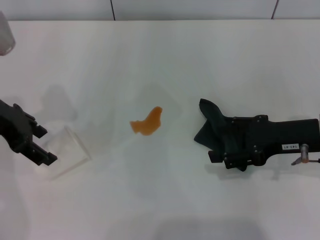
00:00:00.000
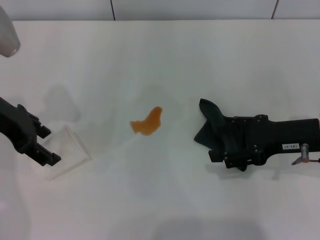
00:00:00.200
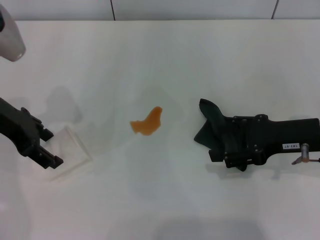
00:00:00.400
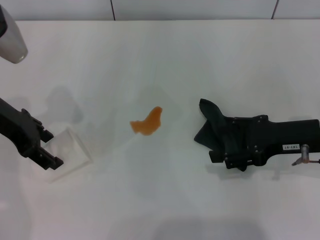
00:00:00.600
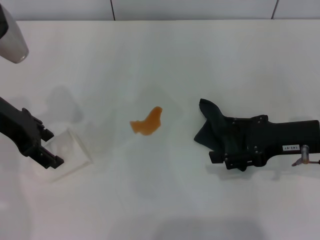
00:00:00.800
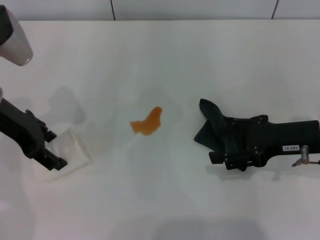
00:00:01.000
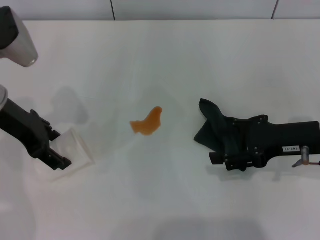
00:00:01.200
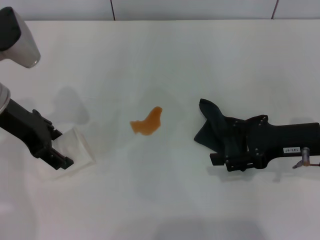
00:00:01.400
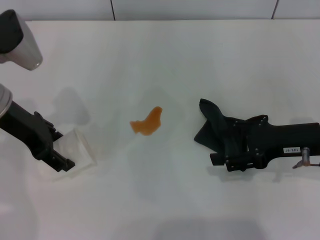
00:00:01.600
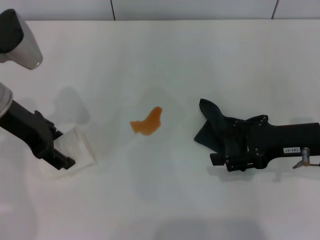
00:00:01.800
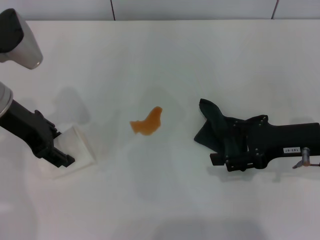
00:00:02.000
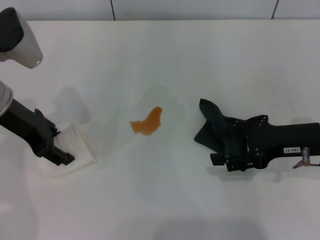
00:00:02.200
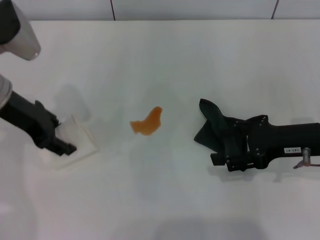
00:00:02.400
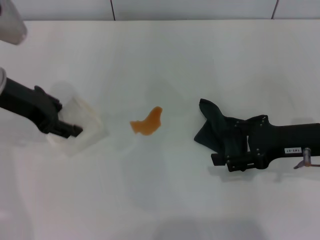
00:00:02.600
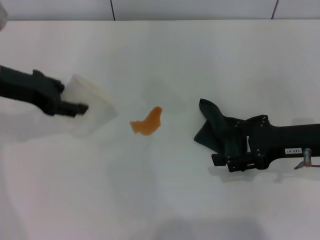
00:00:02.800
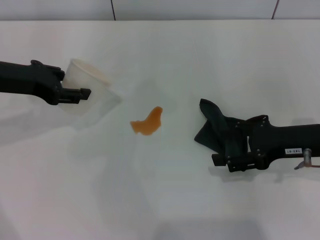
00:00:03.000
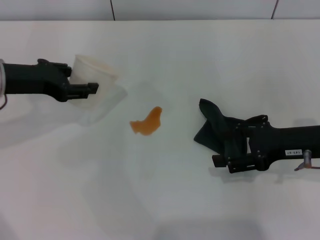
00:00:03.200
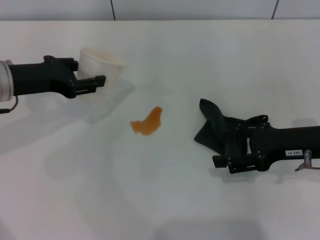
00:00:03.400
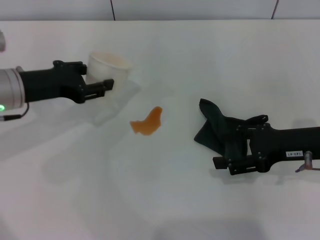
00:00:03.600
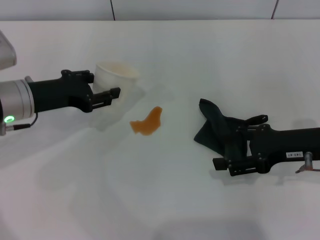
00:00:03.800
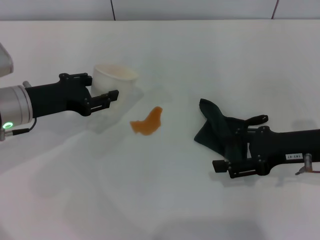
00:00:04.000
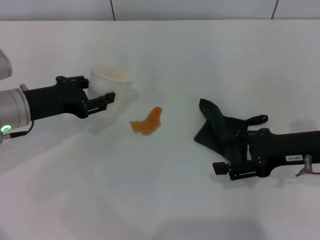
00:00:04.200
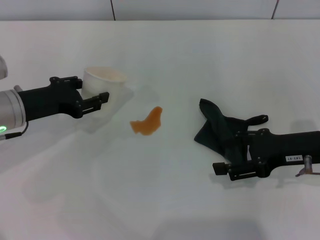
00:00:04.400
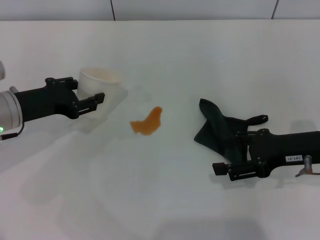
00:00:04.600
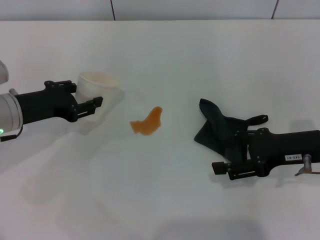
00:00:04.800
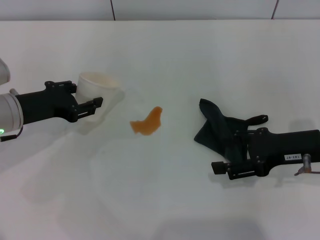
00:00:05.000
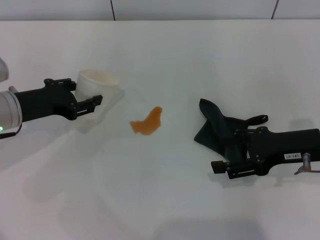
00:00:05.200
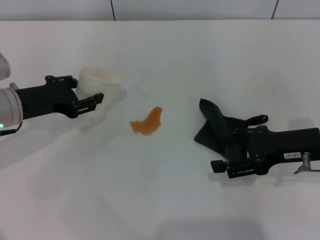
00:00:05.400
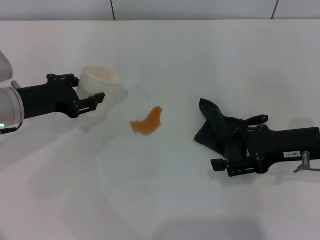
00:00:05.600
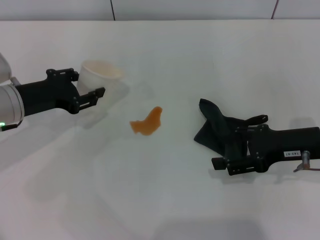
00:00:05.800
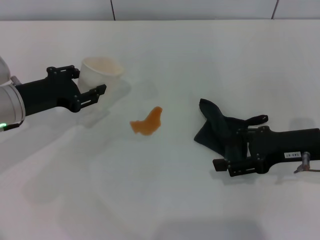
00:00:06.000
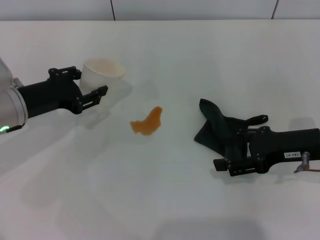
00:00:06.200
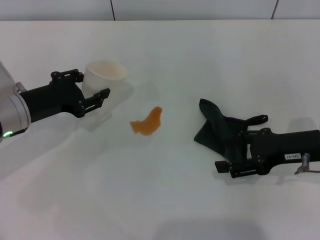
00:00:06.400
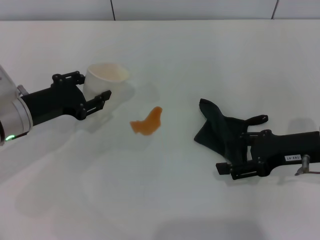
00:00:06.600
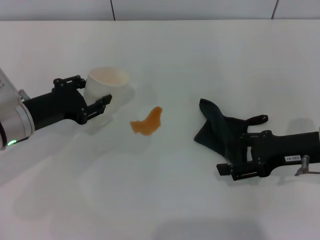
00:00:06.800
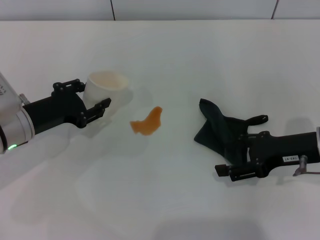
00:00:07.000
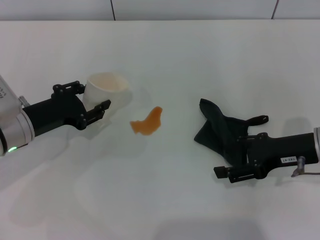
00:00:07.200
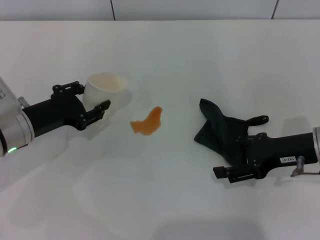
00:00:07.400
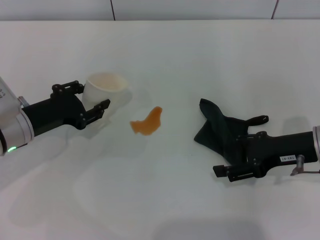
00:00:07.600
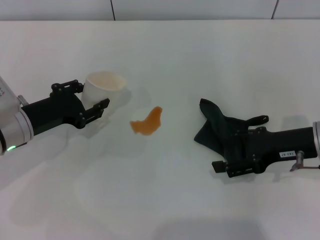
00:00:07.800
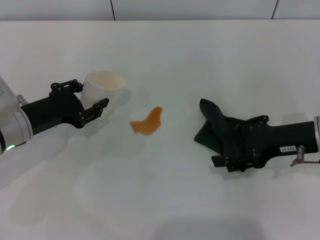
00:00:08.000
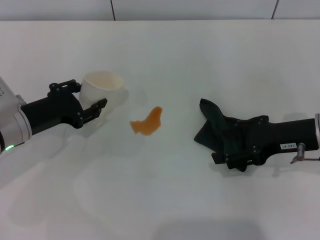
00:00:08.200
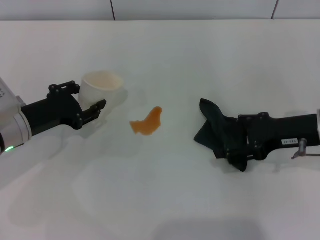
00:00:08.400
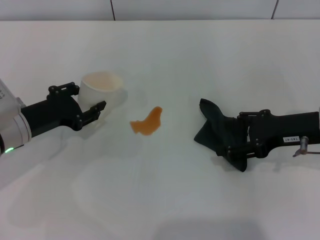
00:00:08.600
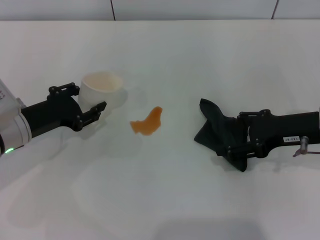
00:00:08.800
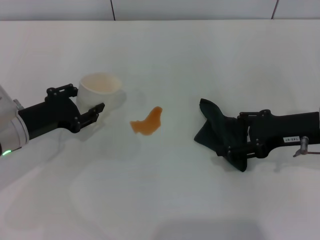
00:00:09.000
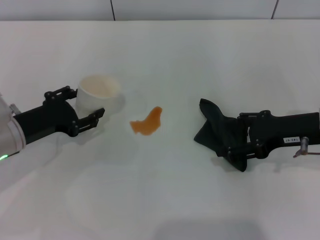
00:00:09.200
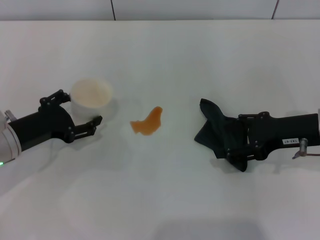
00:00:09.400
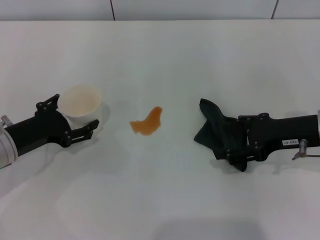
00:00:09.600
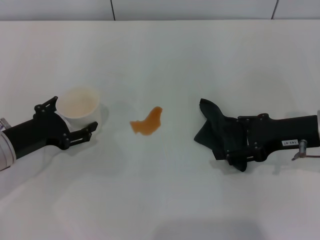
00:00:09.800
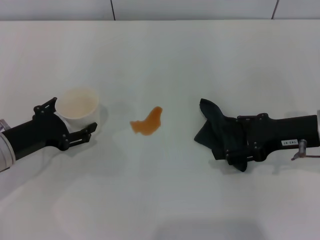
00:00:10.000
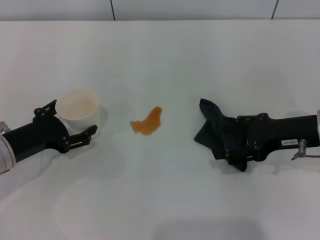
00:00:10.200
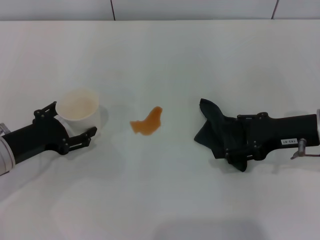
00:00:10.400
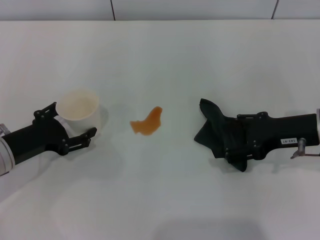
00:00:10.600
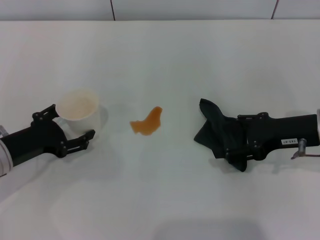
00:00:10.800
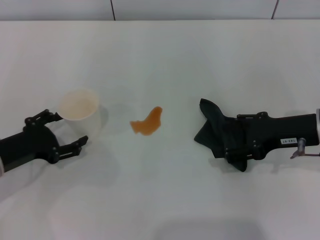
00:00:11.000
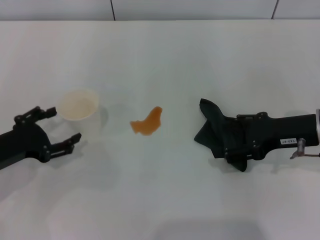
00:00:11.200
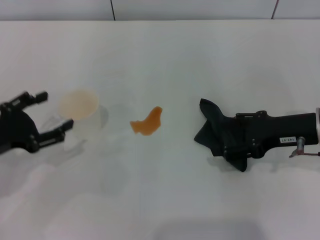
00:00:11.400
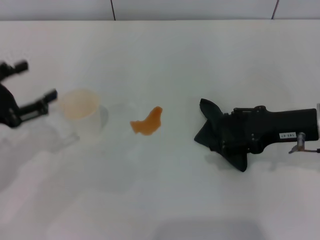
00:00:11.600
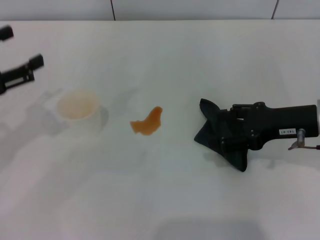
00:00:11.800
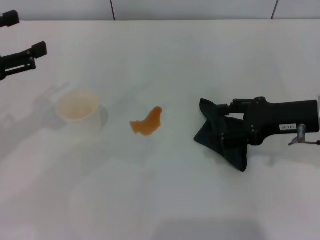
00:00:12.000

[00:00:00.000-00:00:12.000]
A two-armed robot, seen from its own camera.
Step, 00:00:02.000 to 00:00:11.200: Stand the paper cup upright with the left gripper.
00:00:00.000 to 00:00:01.600: There are only small adjustments of the grippers.
00:00:01.600 to 00:00:03.000: The left gripper closes its fingers.
00:00:03.000 to 00:00:04.400: The left gripper is displaced downward by about 10 cm.
00:00:04.400 to 00:00:09.000: The grippers stay close to where they were, moving slightly.
00:00:09.000 to 00:00:10.400: The left gripper opens.
00:00:10.400 to 00:00:12.000: The left gripper goes approximately 15 cm upward.

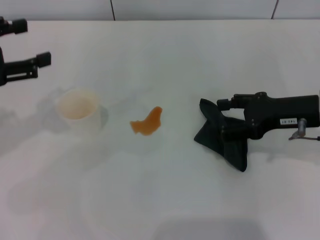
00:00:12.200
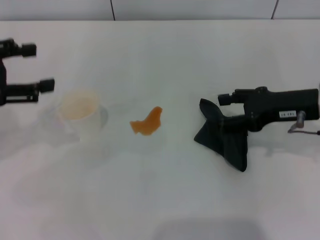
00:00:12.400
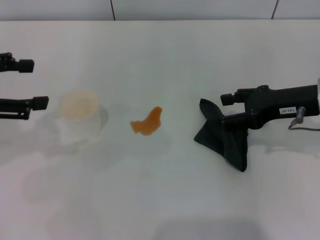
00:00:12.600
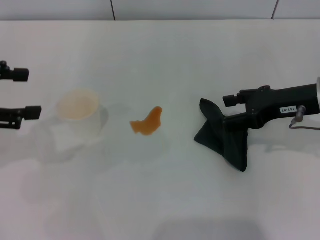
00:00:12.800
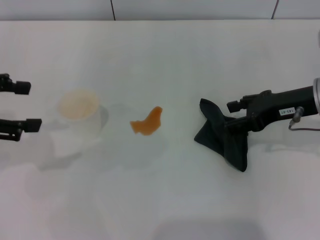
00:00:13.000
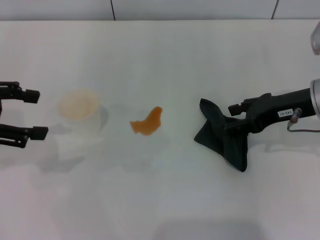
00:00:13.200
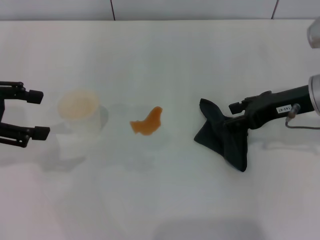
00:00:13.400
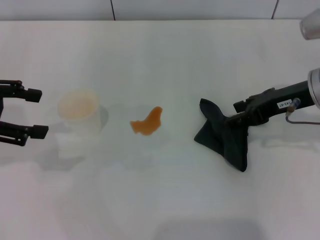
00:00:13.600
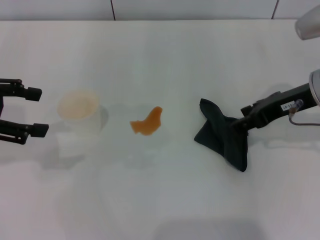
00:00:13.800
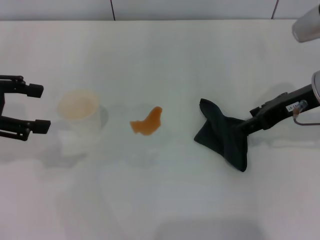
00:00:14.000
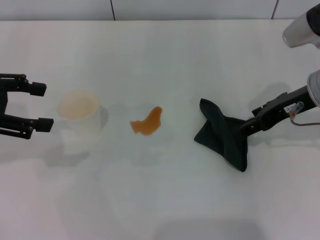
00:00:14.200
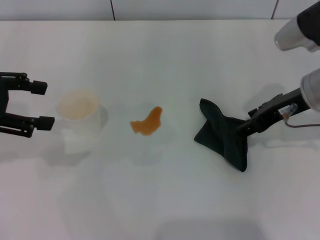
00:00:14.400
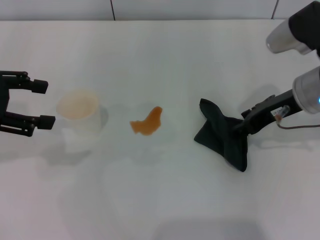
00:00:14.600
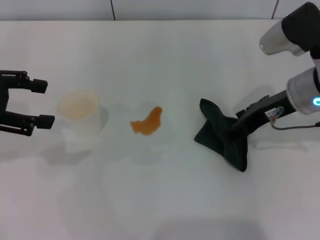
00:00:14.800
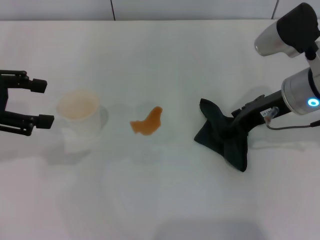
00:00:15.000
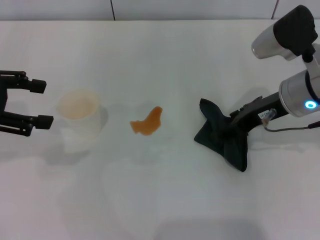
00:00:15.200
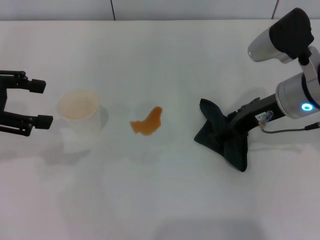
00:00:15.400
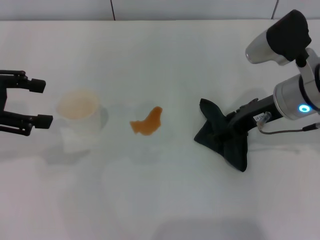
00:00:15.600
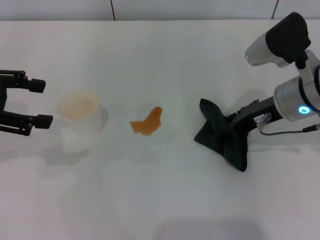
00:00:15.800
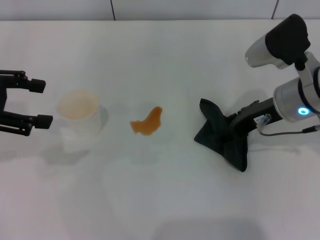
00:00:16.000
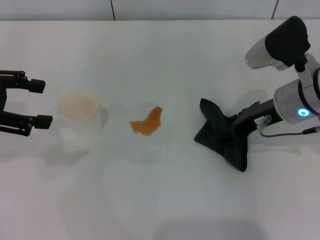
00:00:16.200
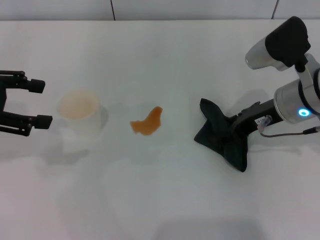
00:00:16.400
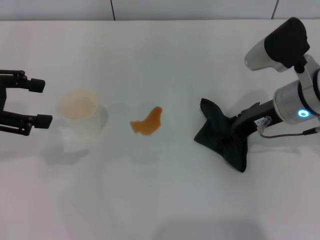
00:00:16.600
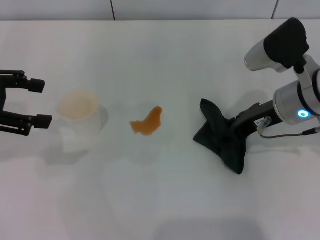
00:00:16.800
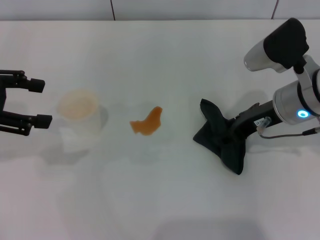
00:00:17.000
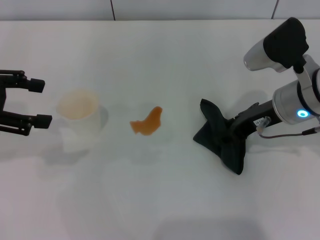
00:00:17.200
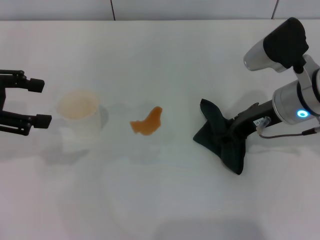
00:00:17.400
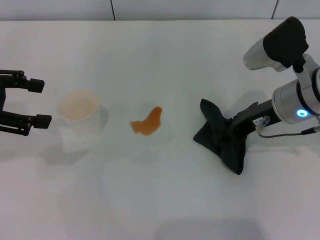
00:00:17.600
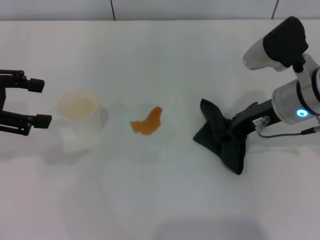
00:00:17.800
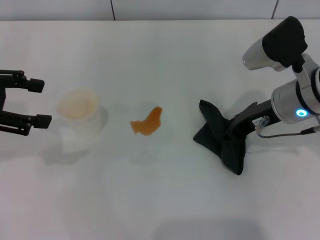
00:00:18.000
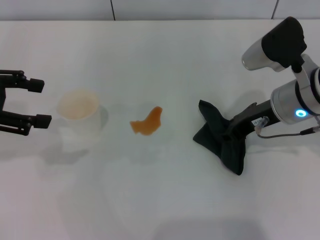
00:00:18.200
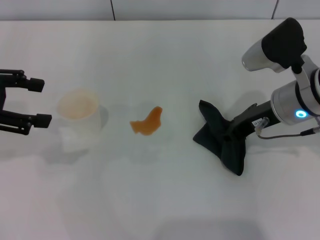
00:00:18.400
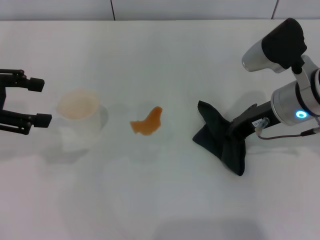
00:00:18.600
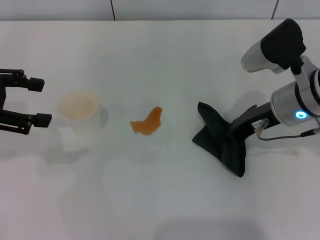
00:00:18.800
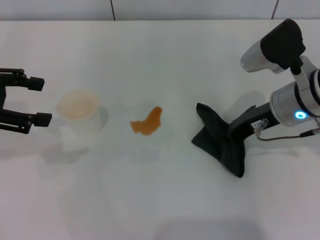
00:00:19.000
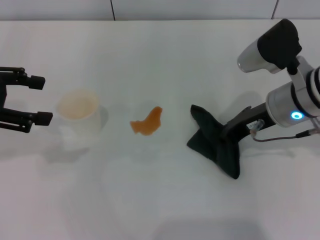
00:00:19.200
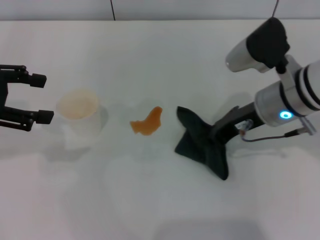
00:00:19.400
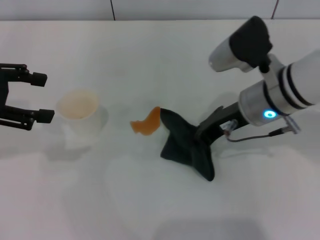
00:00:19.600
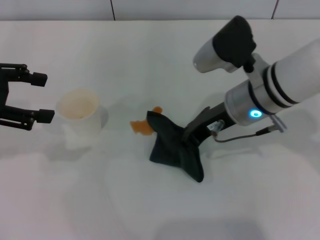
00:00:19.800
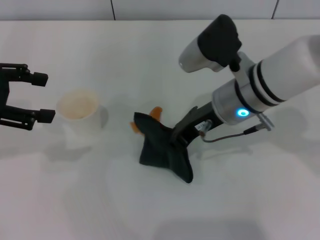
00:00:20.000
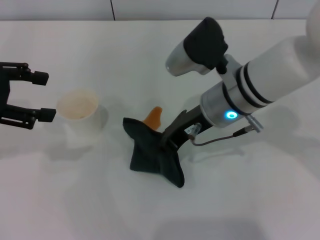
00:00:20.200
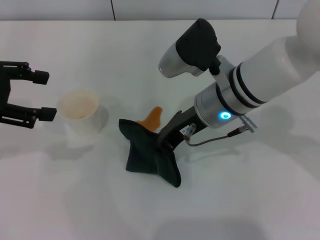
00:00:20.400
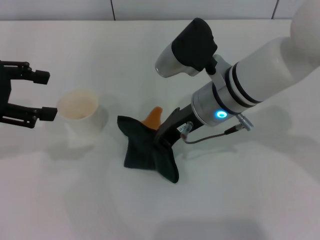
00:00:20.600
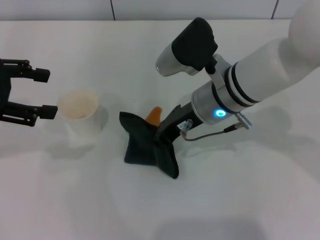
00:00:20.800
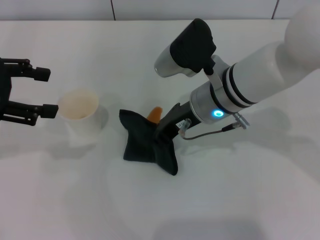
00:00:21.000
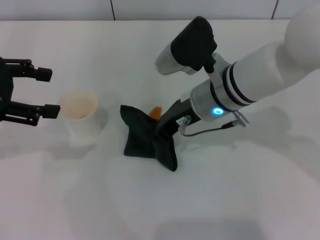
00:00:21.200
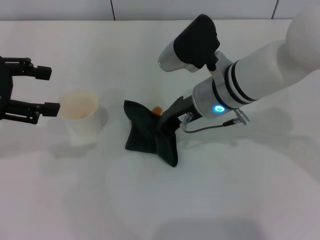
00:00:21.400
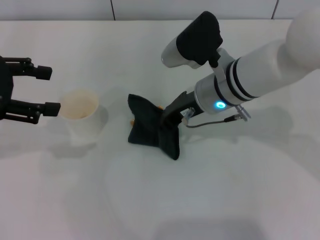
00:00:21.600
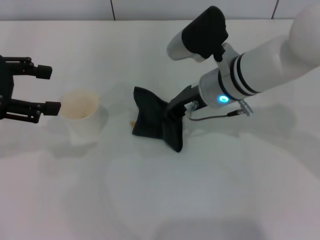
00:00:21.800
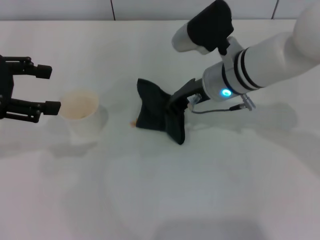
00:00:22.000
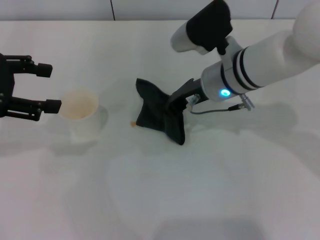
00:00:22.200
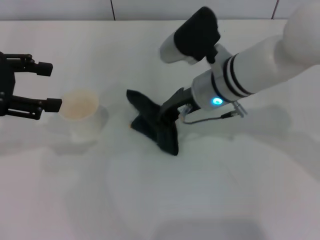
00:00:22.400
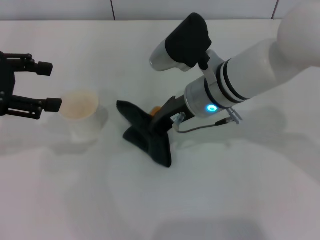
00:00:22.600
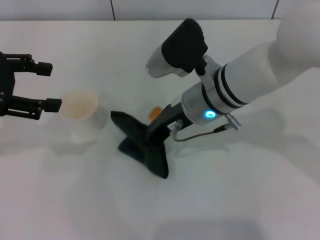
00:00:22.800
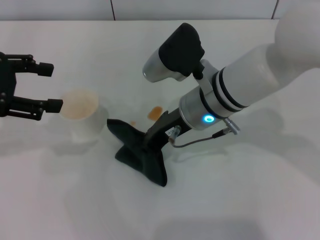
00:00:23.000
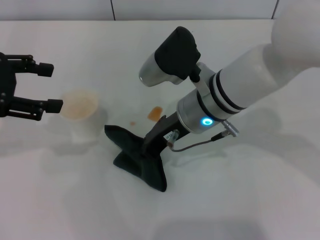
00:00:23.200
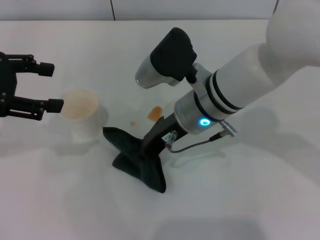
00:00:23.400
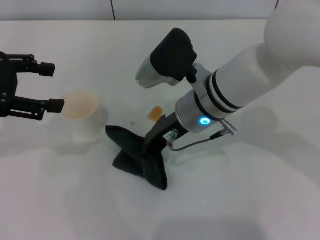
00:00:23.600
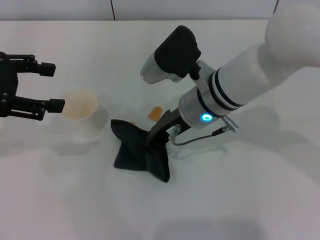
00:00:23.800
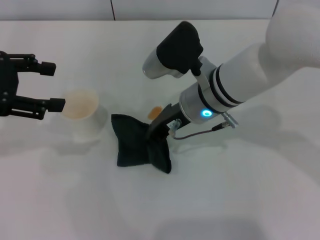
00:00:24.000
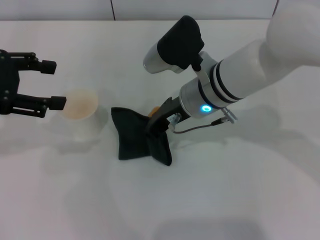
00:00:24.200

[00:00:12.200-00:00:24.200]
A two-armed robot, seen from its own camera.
Step, 00:00:12.200 to 00:00:16.800: Grasp the rag with the right gripper.
00:00:13.800 to 00:00:16.600: The grippers make only small movements.
00:00:16.600 to 00:00:18.200: The right gripper closes its fingers.
00:00:18.200 to 00:00:19.800: The right gripper moves to the left, roughly 5 cm, and closes.
00:00:19.800 to 00:00:21.200: The right gripper shifts by roughly 5 cm.
00:00:21.200 to 00:00:24.200: There are only small adjustments of the grippers.
